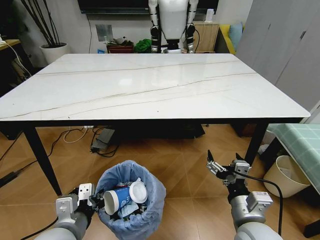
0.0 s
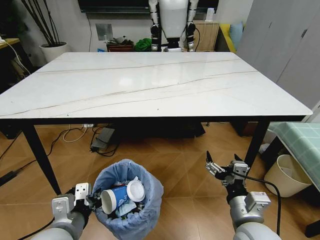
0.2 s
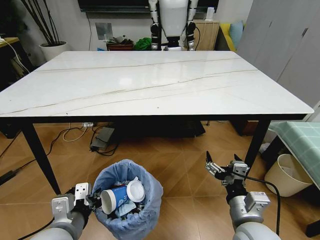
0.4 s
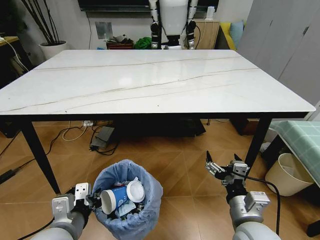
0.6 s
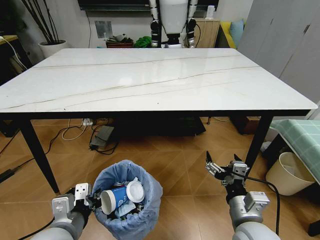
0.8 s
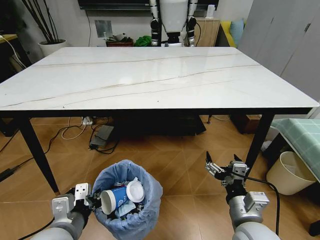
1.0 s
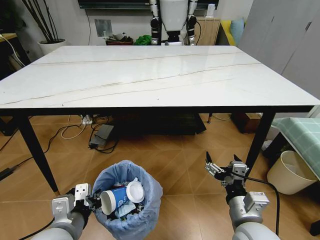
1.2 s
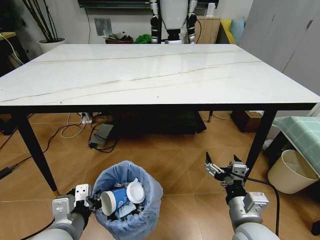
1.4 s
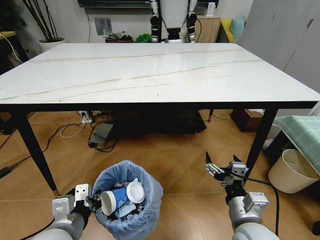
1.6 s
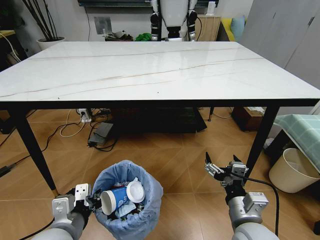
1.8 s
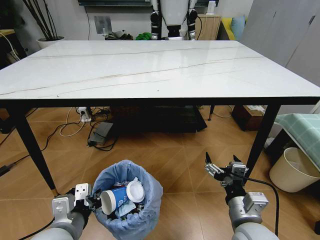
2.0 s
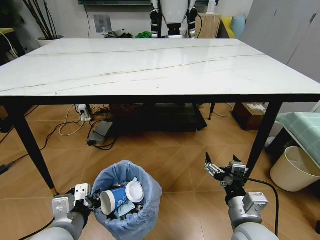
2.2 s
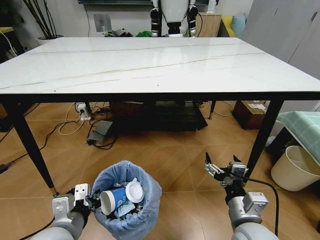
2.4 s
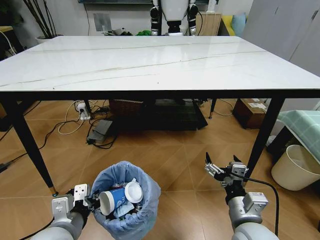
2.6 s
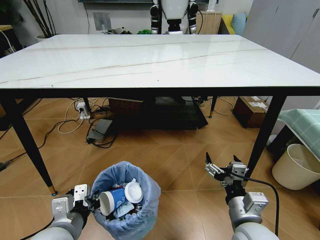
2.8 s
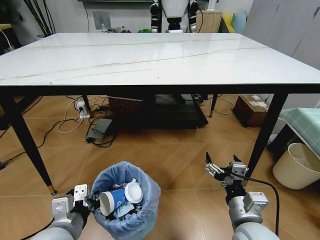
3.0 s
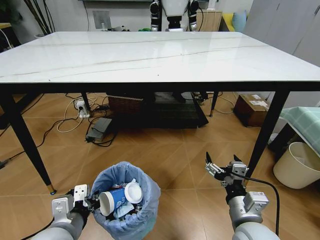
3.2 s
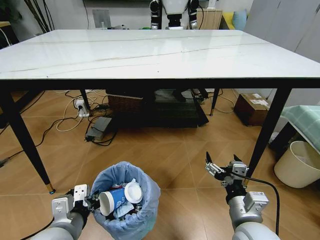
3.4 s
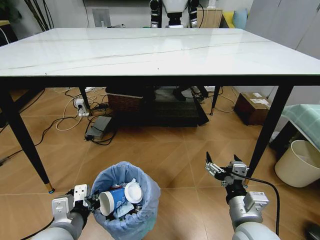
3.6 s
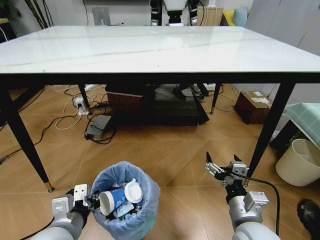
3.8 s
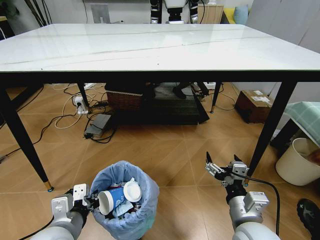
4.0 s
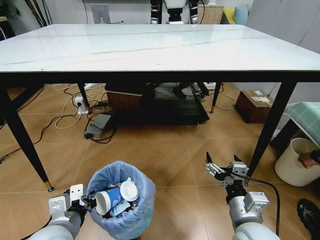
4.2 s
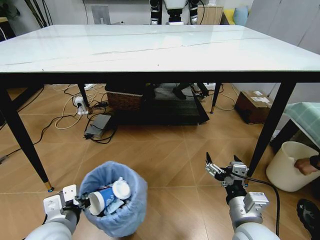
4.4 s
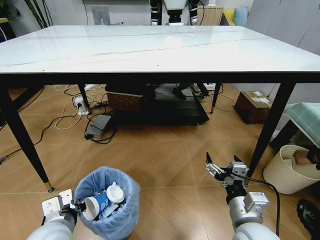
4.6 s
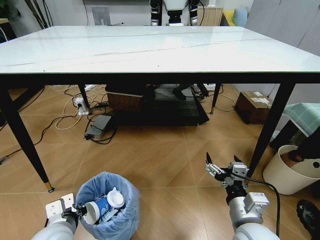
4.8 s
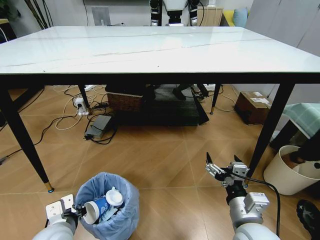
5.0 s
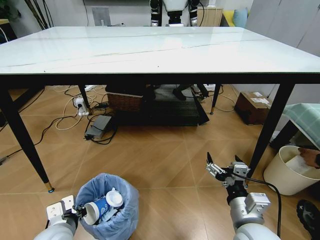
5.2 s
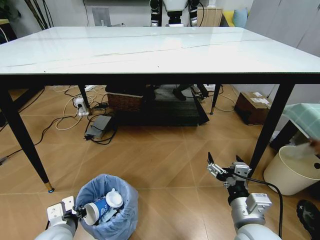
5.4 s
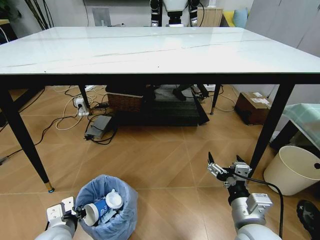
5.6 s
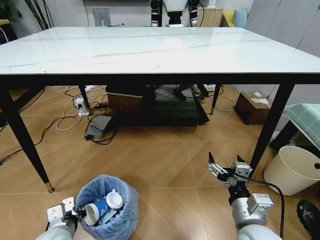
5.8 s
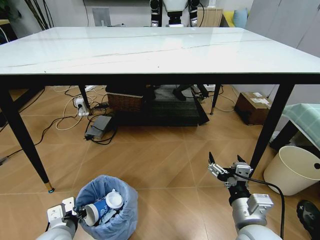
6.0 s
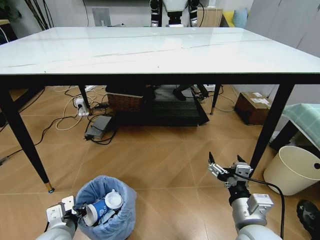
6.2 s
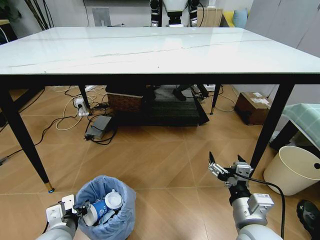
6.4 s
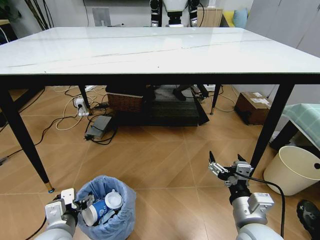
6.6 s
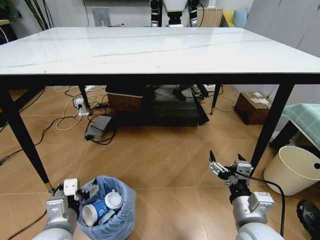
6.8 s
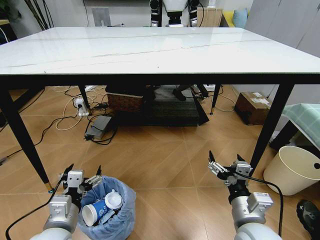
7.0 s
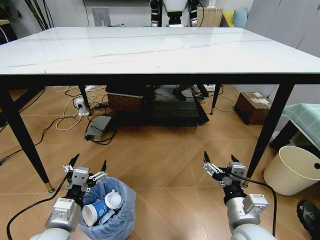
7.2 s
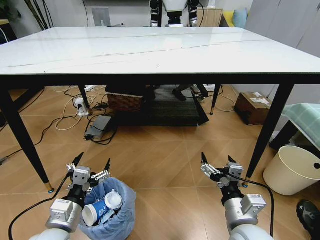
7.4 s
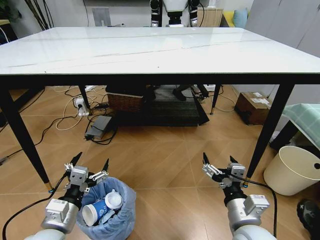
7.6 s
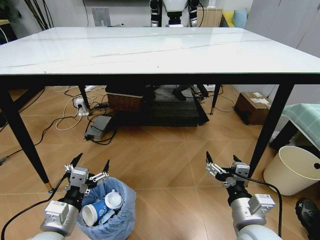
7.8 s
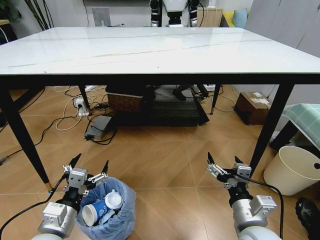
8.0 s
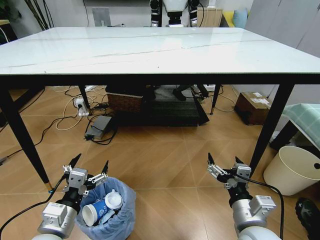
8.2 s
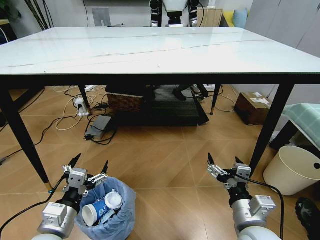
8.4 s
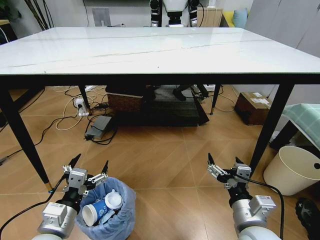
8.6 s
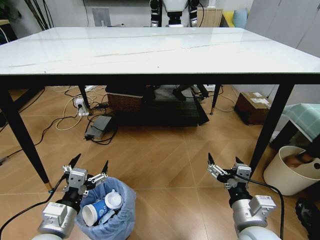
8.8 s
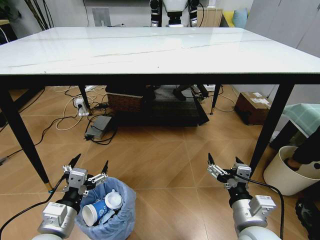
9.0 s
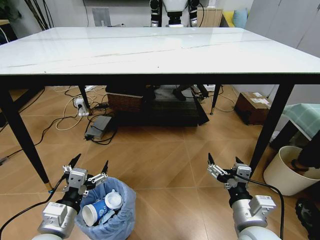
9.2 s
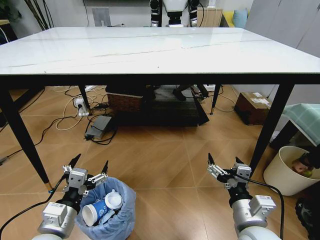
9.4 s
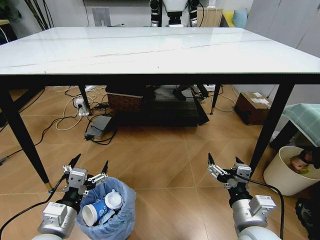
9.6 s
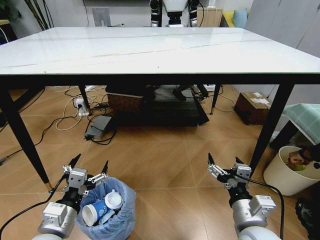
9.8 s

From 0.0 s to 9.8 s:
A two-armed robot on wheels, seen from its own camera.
Task of the whole recording: Pick up the trash bin and place the trash from the table into it.
From 4.2 s to 5.6 s: The left gripper travels downward by about 10 cm.
From 5.6 s to 7.0 s: The left gripper travels upward by some 5 cm, and opens.
From 8.4 s to 9.8 s: Both grippers stay put.

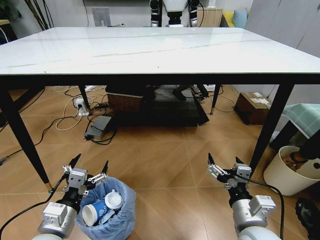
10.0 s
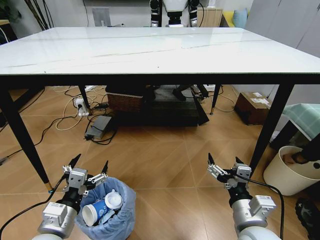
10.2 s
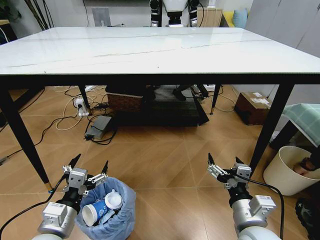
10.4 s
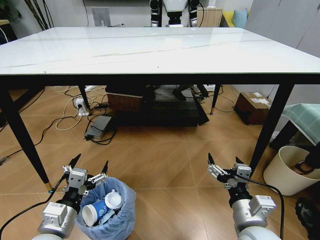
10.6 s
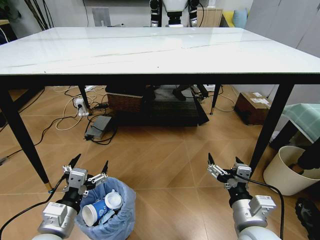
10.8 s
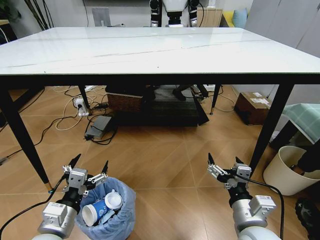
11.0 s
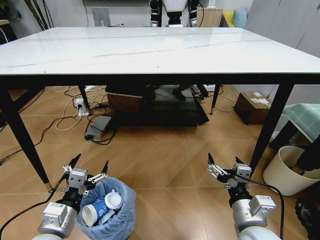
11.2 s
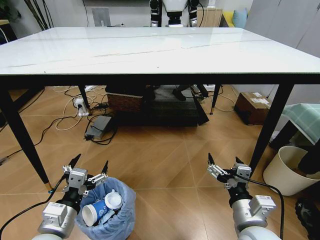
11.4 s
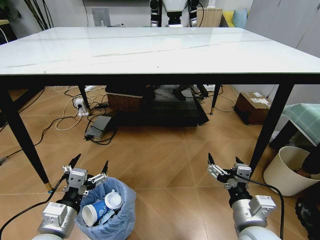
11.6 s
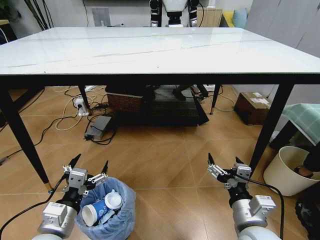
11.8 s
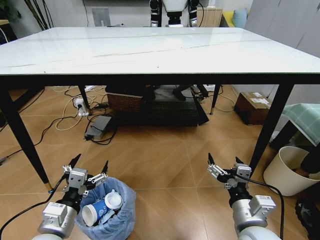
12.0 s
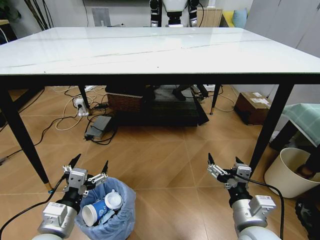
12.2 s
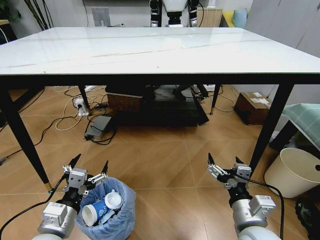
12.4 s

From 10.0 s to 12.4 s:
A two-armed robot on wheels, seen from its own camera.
Task of the whole recording: Pick up the trash bin and place the trash from the table into it.
From 10.0 s to 12.4 s: The two grippers keep their place.
